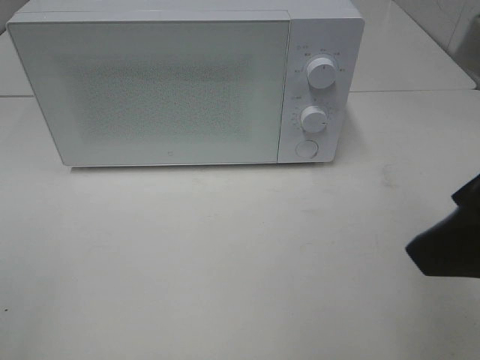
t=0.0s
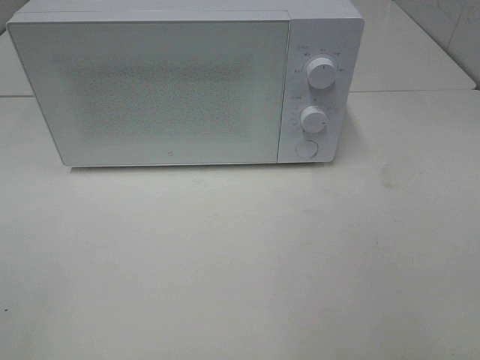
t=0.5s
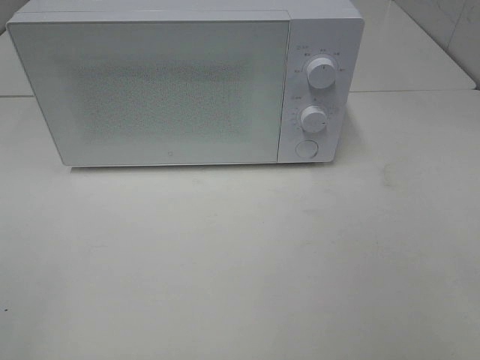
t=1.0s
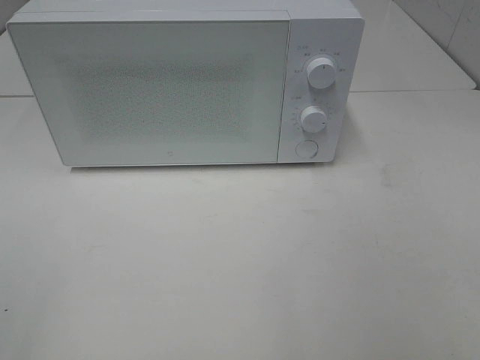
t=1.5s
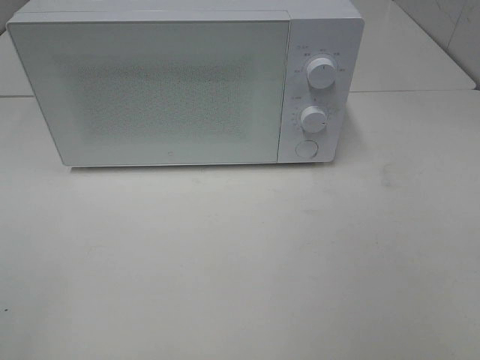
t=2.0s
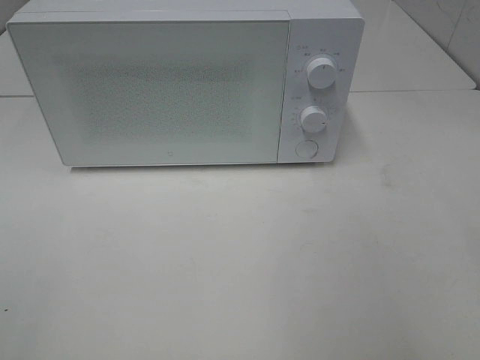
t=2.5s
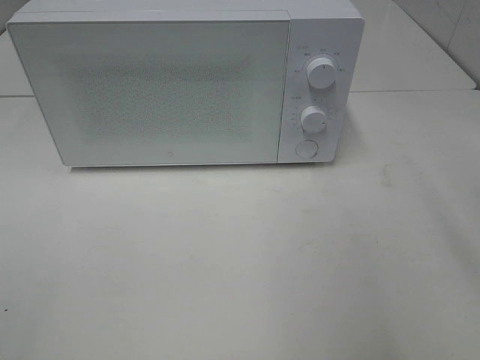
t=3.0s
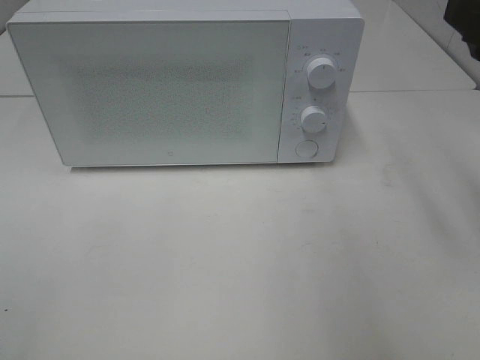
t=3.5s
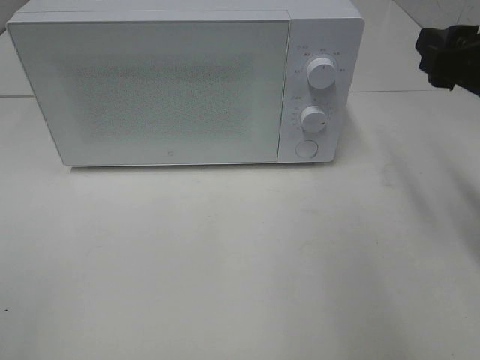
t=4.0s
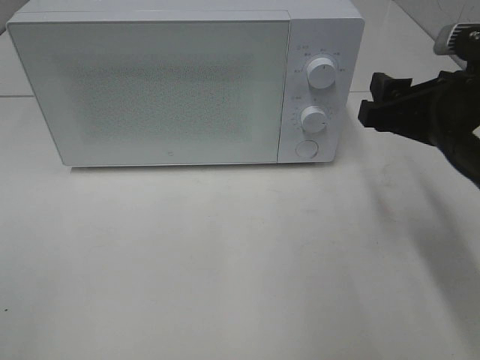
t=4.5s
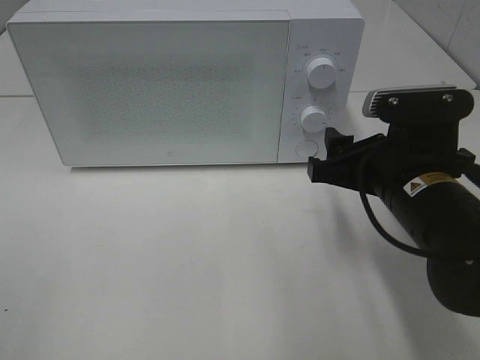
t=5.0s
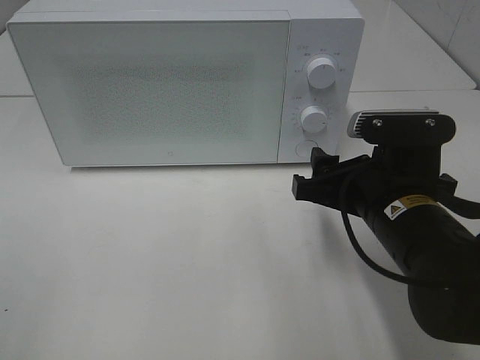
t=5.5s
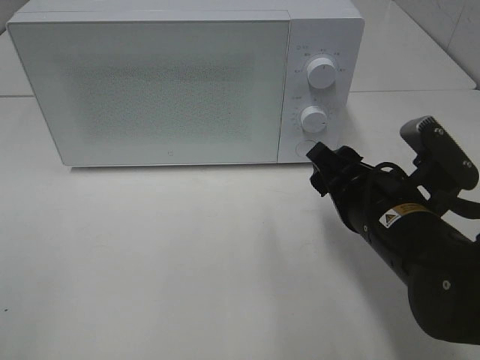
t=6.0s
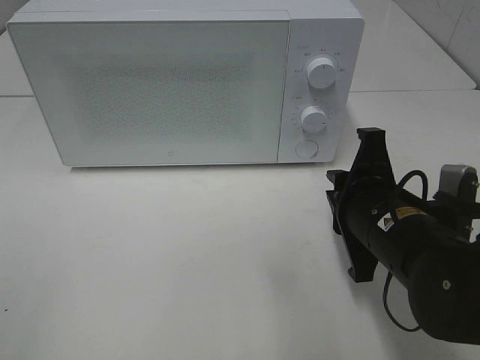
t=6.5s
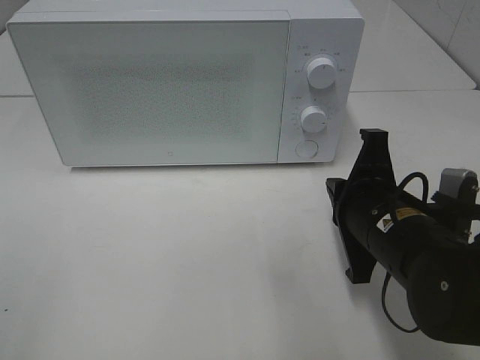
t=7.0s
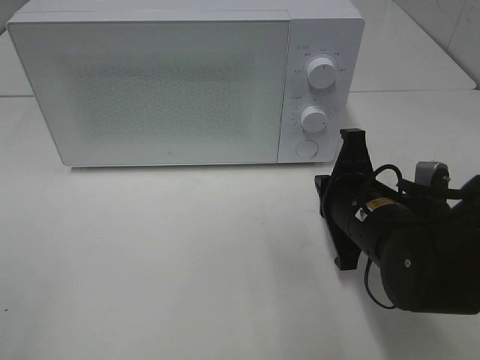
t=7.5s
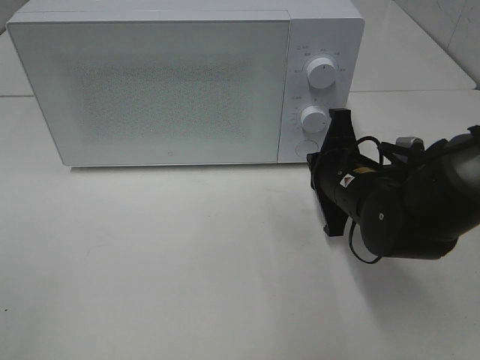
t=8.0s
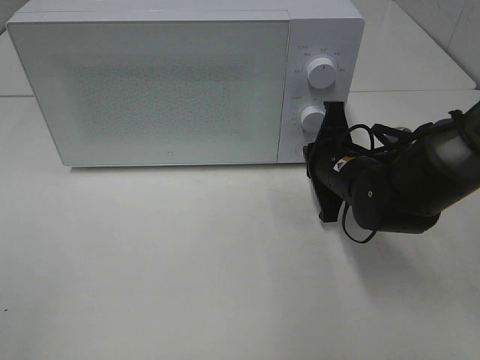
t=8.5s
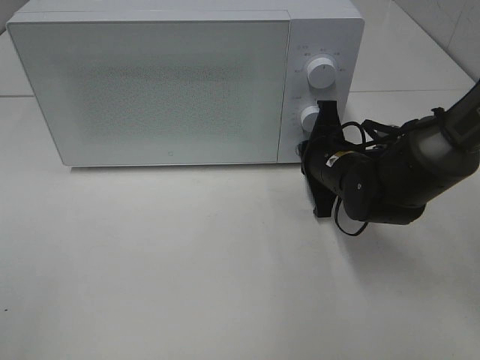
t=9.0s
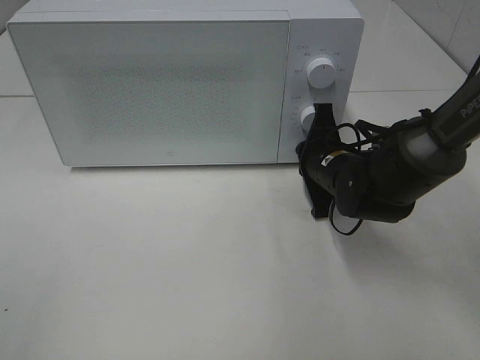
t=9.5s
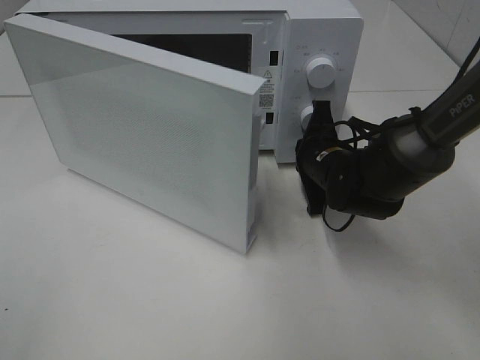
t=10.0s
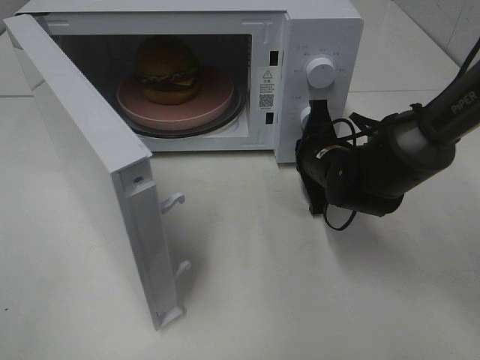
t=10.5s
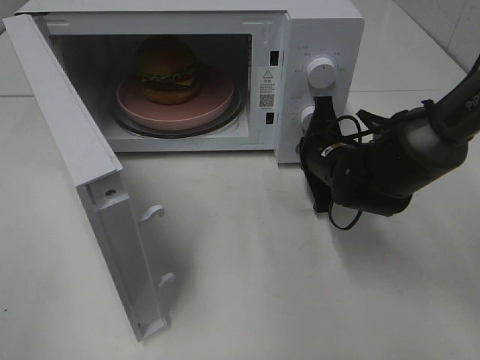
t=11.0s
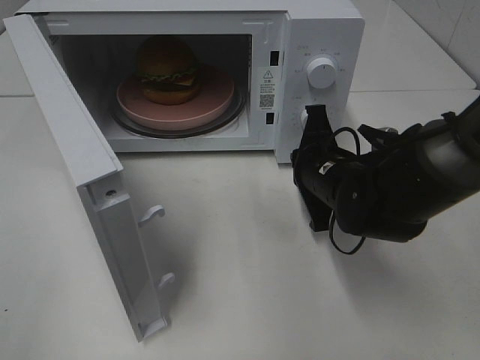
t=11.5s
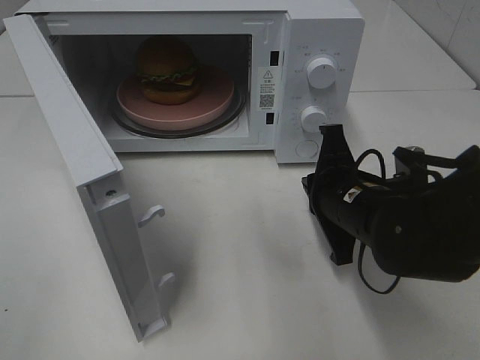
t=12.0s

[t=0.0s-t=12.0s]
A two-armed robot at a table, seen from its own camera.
Task of the whole recording: Heat the burger.
Step, t=0.0s to t=11.0s: Right hand: press the switch.
t=0.0s to t=2.0s: The right gripper heads backward and to the right, covering roughly 15 cm.
t=2.0s to t=4.0s: The right gripper shifts roughly 25 cm forward.
t=4.0s to t=6.0s: The right gripper travels downward and to the left by some 15 cm.
t=6.0s to t=8.0s: The right gripper is displaced forward by some 10 cm, and closes.
t=8.0s to t=10.0s: The right gripper goes roughly 5 cm forward.
t=10.0s to t=12.0s: The right gripper shifts approximately 10 cm backward.

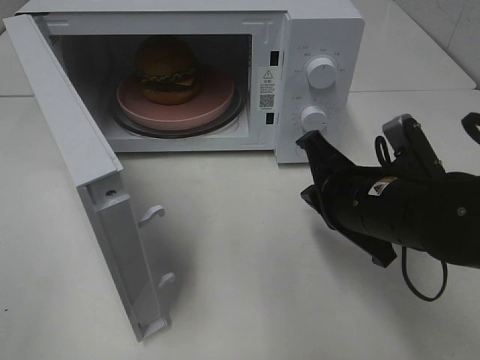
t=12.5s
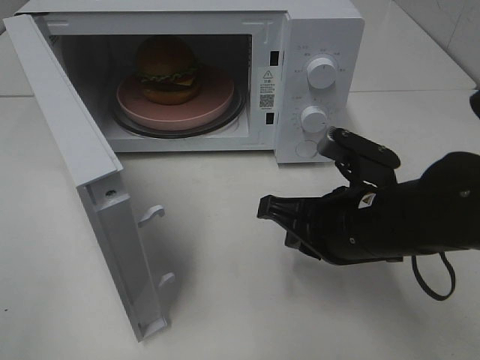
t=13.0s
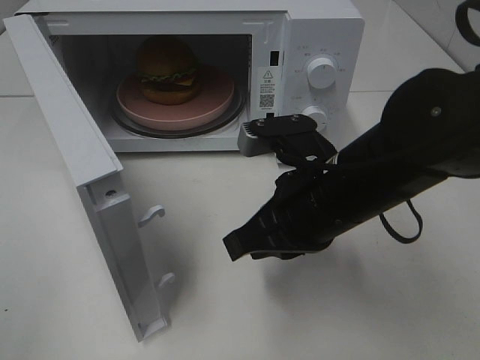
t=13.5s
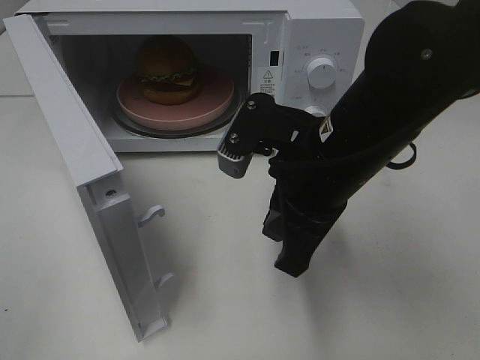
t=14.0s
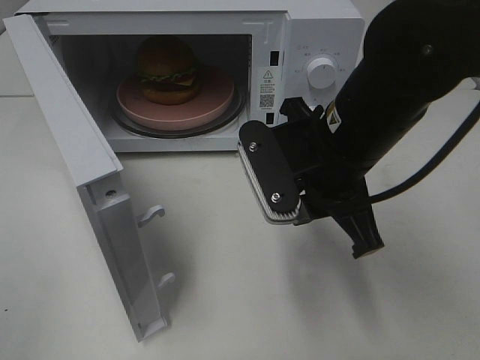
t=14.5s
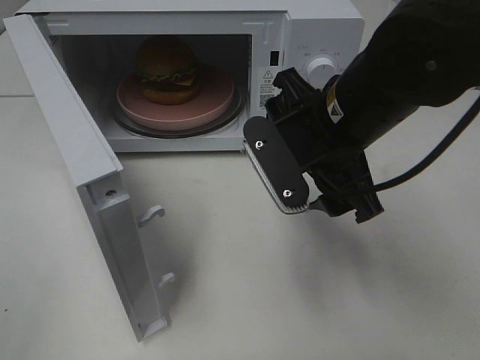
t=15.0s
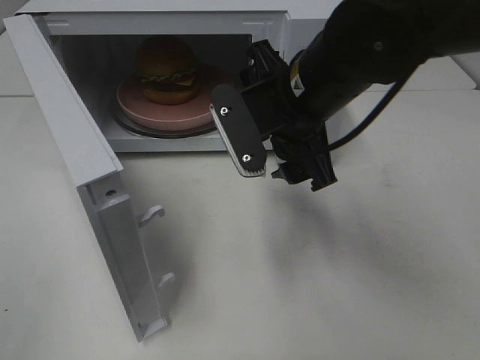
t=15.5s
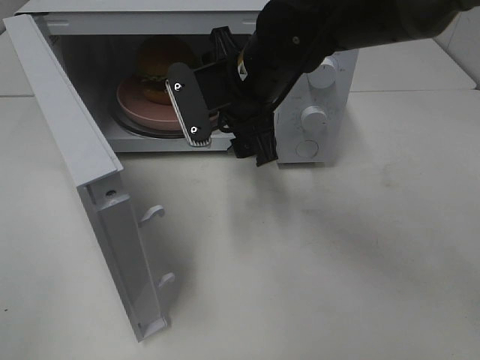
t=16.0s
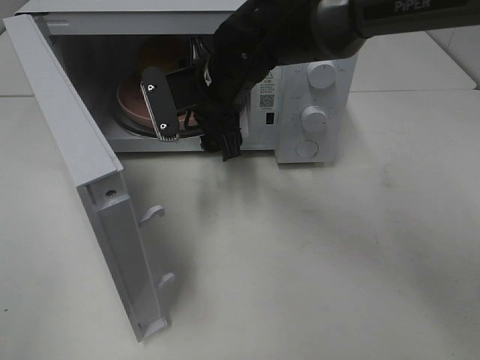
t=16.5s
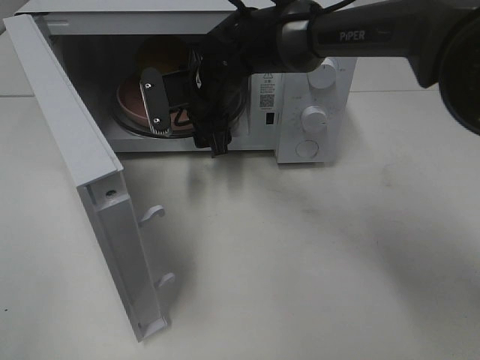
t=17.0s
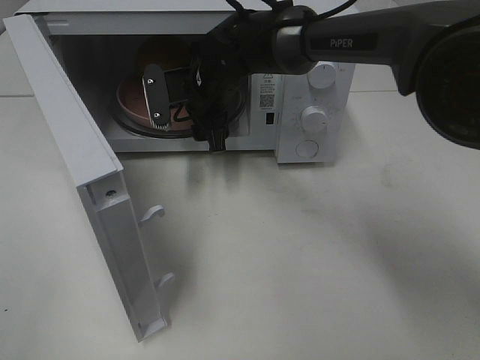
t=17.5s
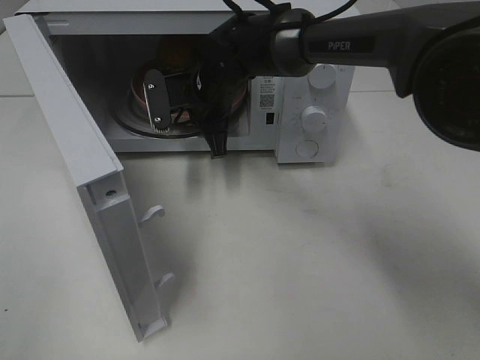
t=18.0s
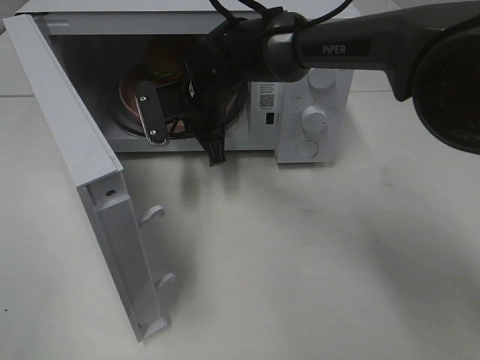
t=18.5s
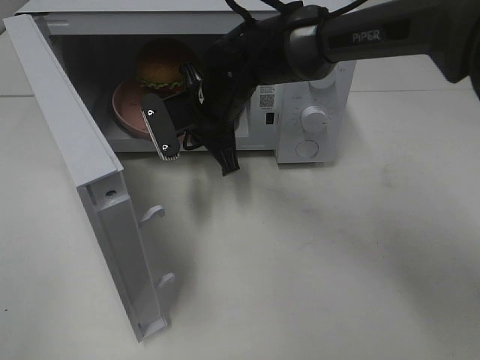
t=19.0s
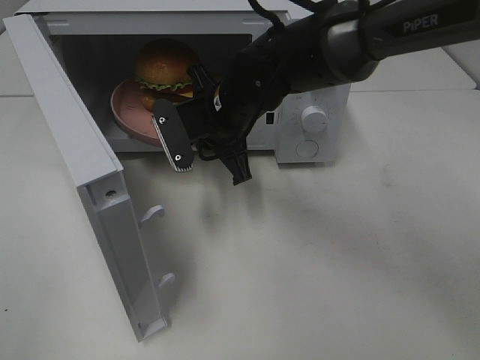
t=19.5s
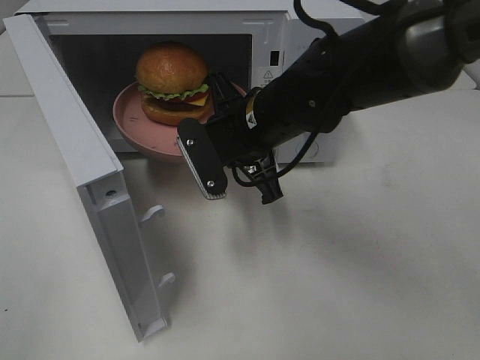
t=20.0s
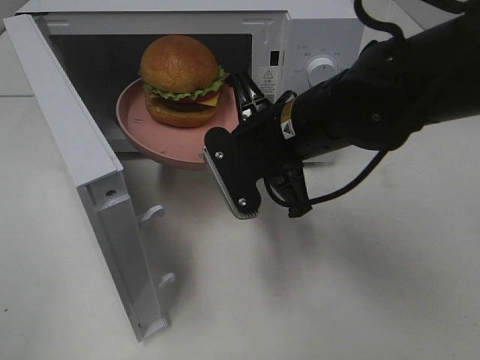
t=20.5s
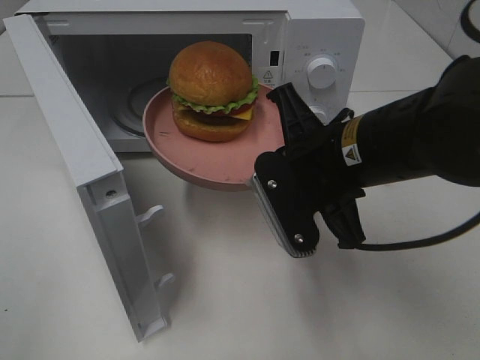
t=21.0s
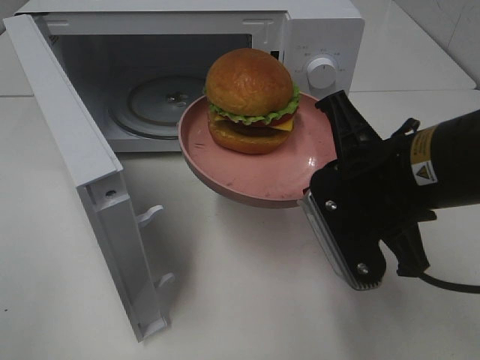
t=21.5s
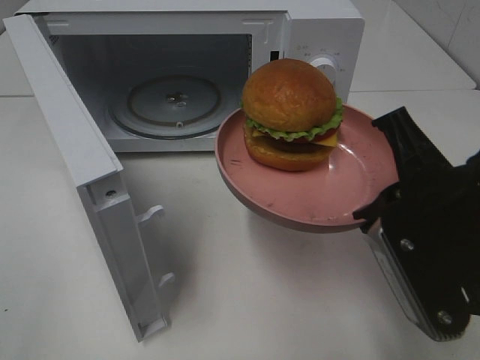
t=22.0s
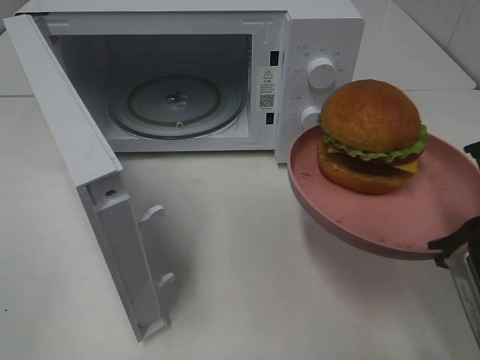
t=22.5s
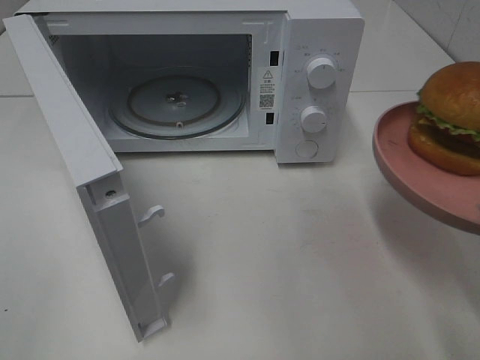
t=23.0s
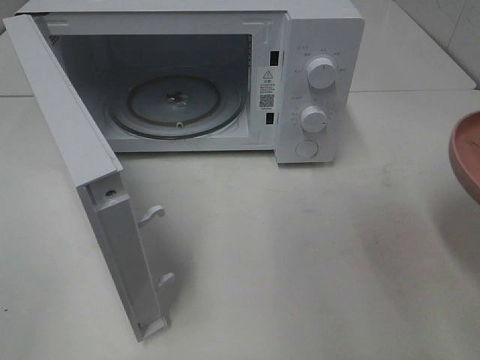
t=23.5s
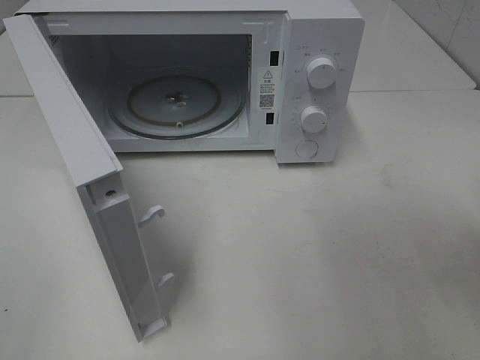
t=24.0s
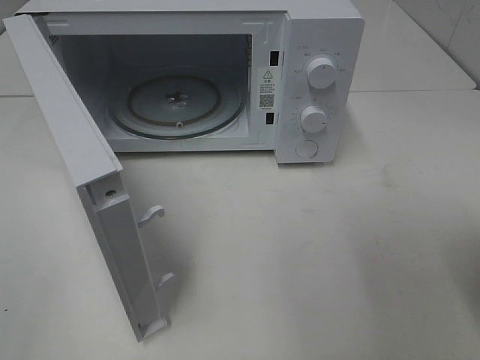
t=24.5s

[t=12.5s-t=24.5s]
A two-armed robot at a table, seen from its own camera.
Task of the whole recording: Heat the burger.
Step, t=12.5s to t=18.0s: Right hand: grab the plate with the hamburger.
t=12.5s to t=14.5s: The right gripper goes approximately 5 cm upward, and opens its fingers.
t=14.5s to t=16.5s: The right gripper is displaced forward and to the left by roughly 15 cm, and opens its fingers.
t=16.5s to t=18.5s: The right gripper ends up approximately 5 cm from where it was, and closes up.
t=18.5s to t=20.5s: The right gripper travels backward and to the right by some 15 cm.
t=20.5s to t=22.5s: The right gripper shifts approximately 20 cm backward and to the right.
t=22.5s to t=24.5s: The right gripper moves roughly 5 cm.

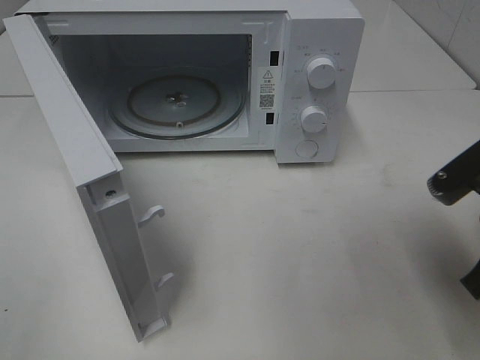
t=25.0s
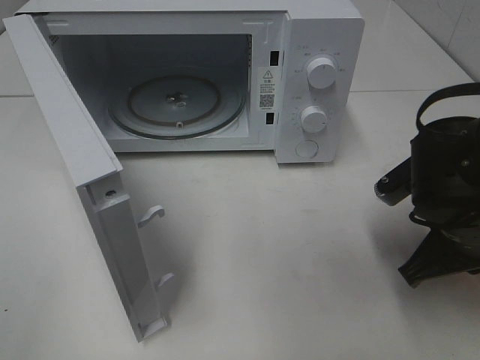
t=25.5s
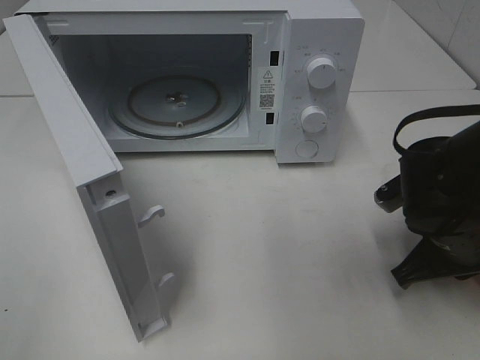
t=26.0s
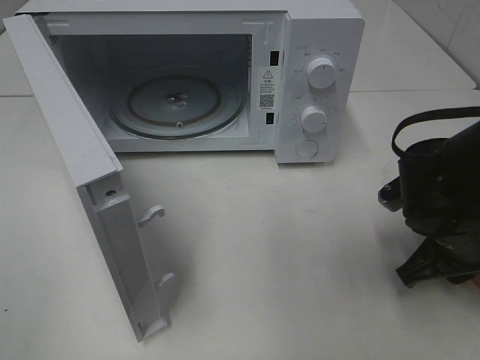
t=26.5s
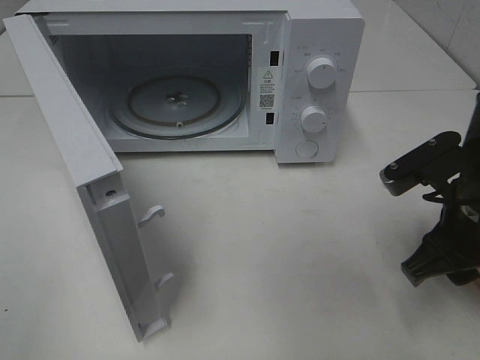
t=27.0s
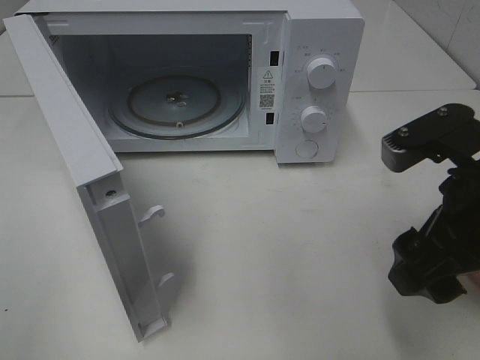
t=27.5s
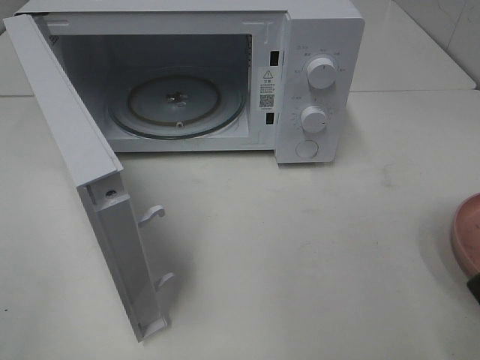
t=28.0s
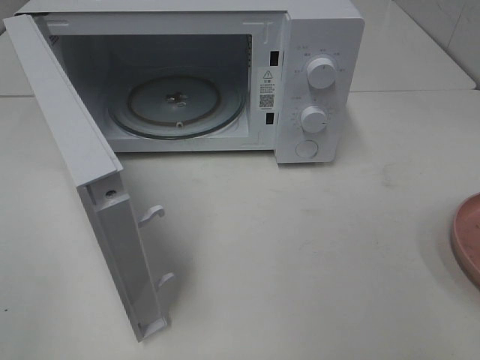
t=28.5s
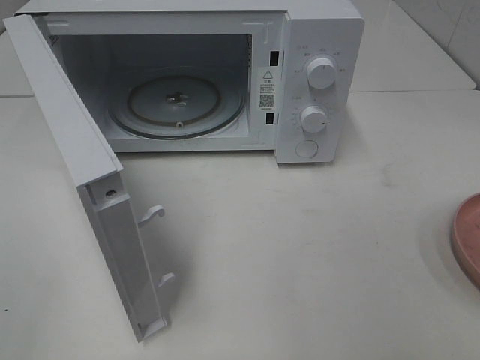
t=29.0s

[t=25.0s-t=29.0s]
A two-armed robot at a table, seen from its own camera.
Task of the whole recording: Heat the burger.
t=25.0s to t=27.0s: The right gripper goes downward and returns, about 10 cm each way, and opens up.
t=27.0s to t=29.0s: The right gripper heads backward, upward and to the right, covering about 25 cm.
